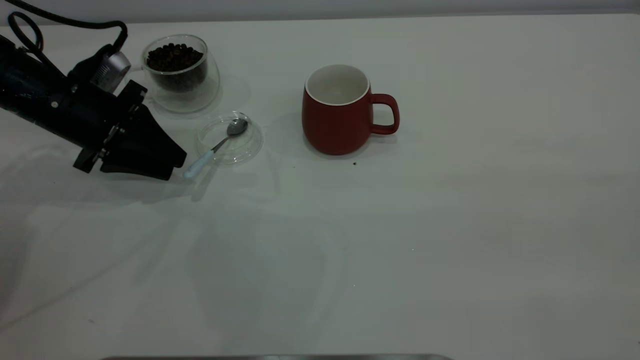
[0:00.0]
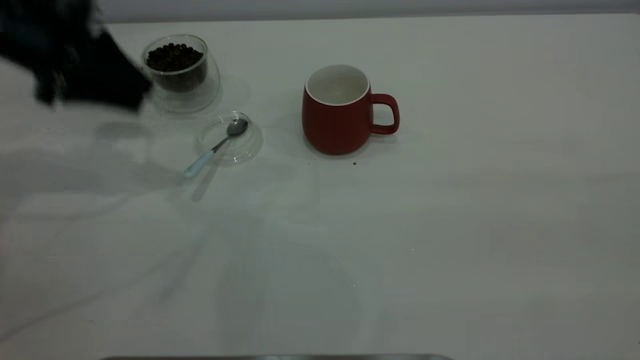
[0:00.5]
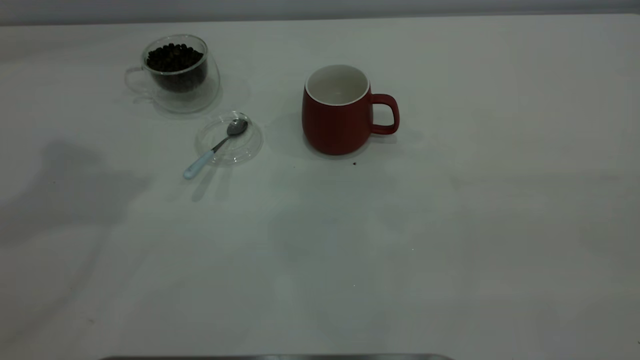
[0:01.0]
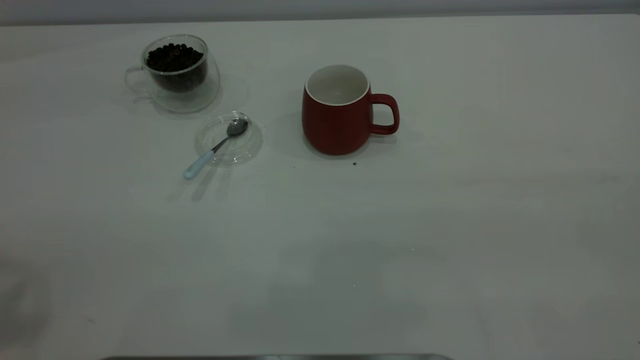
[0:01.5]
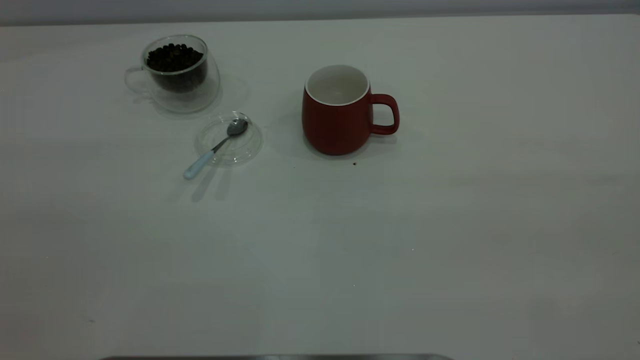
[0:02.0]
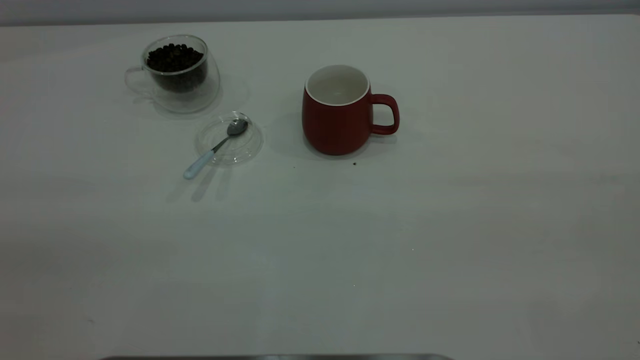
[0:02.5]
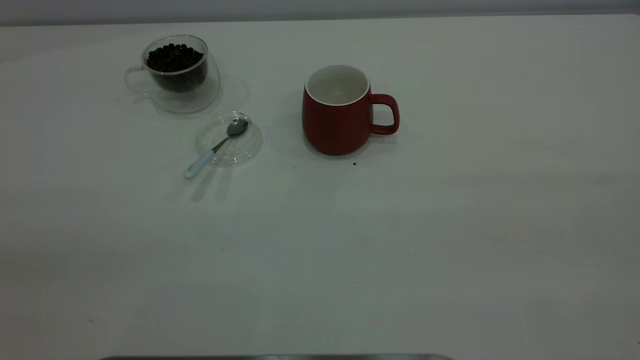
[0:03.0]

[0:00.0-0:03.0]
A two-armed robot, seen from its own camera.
Task of the whole recording: the right gripper place the red cup in the center of the table, the left gripper take the blue spoon from the cup lid and scoop out the coffee beans from the coffee cup and put them into the red cup, the left gripper put the spoon back into the cup lid.
0:00.0 to 0:01.5: The left gripper heads upward and backward, covering some 40 cm.
